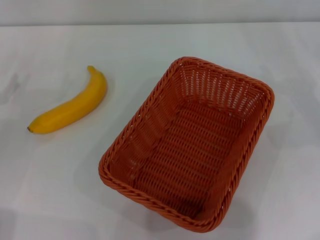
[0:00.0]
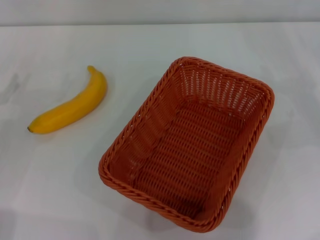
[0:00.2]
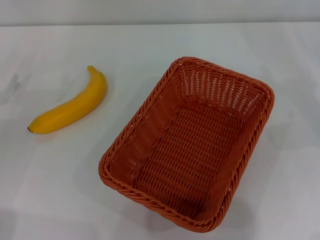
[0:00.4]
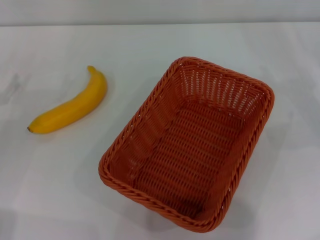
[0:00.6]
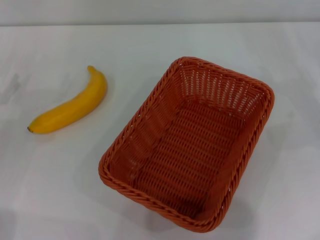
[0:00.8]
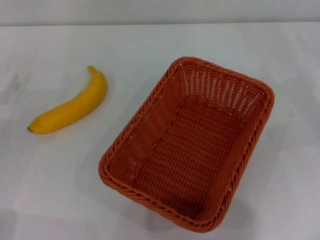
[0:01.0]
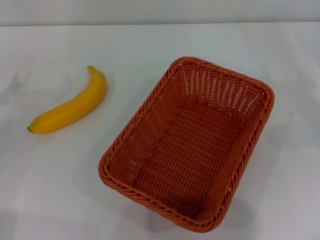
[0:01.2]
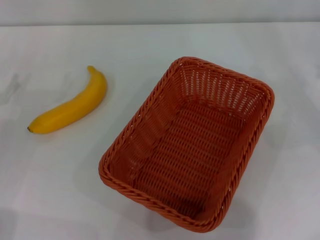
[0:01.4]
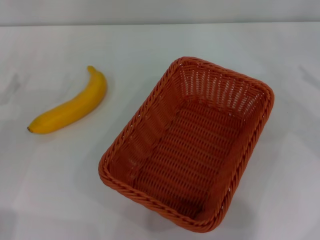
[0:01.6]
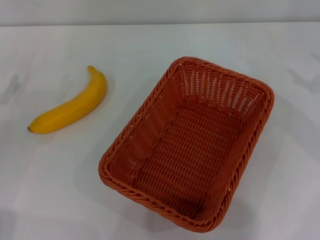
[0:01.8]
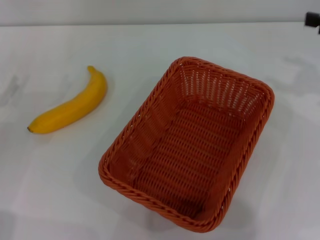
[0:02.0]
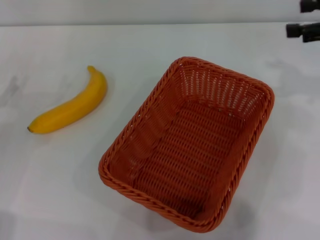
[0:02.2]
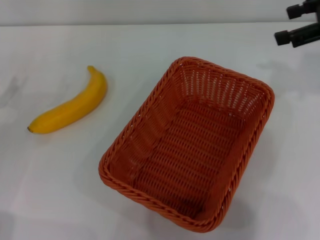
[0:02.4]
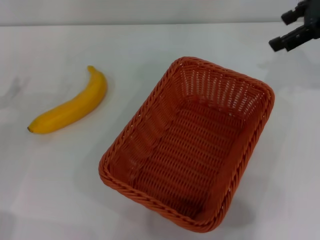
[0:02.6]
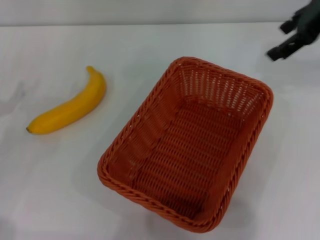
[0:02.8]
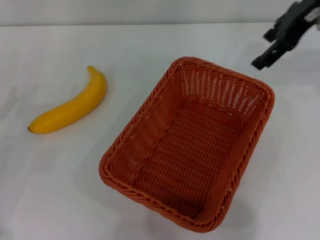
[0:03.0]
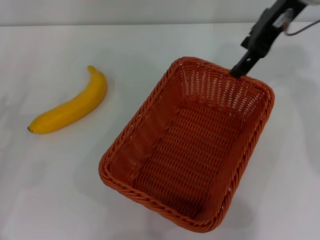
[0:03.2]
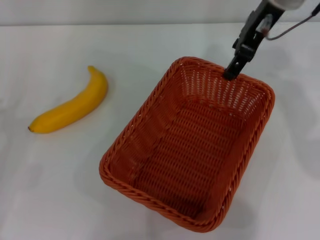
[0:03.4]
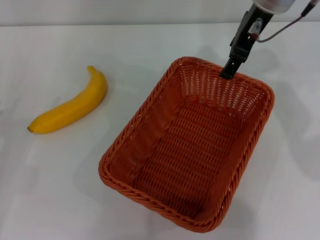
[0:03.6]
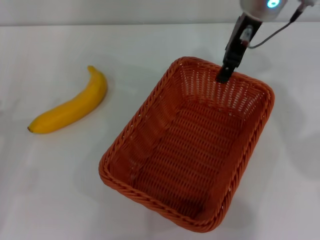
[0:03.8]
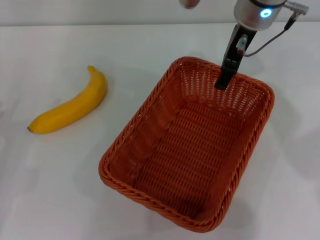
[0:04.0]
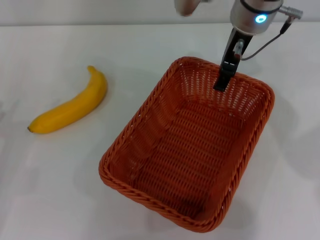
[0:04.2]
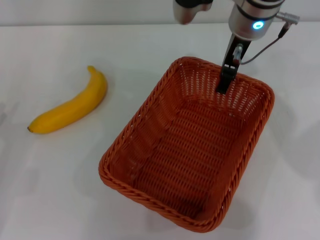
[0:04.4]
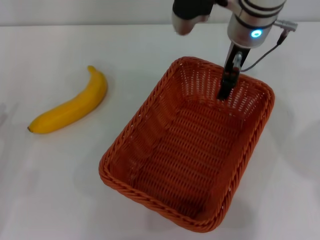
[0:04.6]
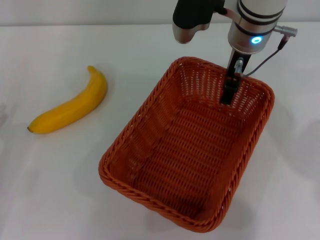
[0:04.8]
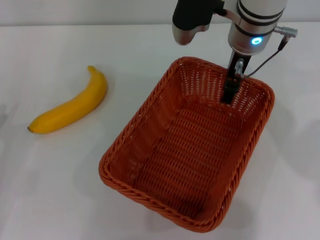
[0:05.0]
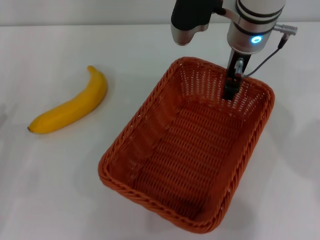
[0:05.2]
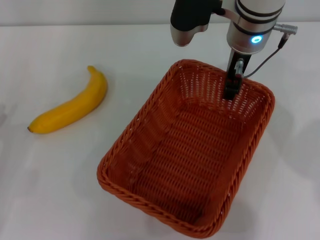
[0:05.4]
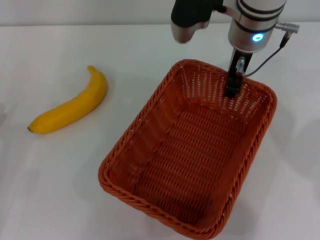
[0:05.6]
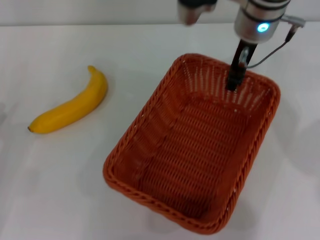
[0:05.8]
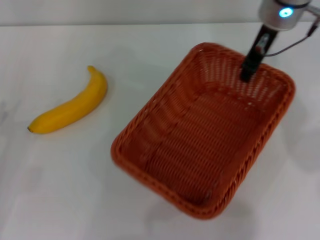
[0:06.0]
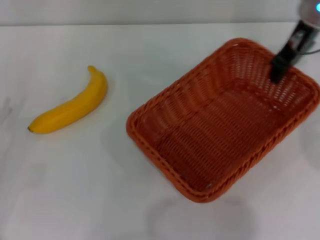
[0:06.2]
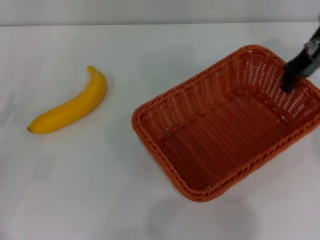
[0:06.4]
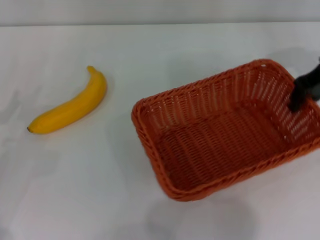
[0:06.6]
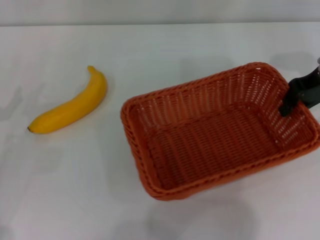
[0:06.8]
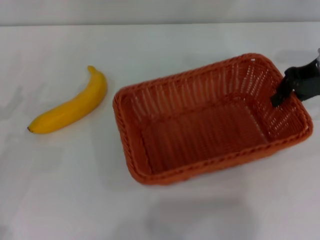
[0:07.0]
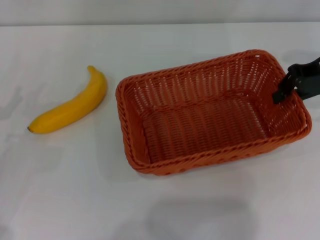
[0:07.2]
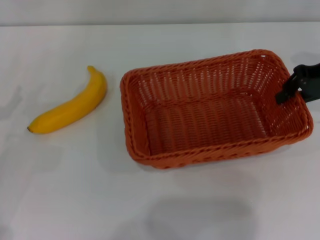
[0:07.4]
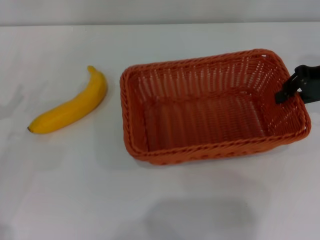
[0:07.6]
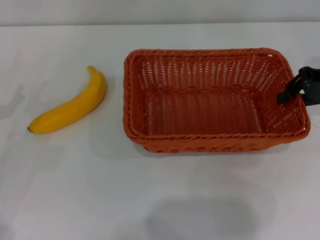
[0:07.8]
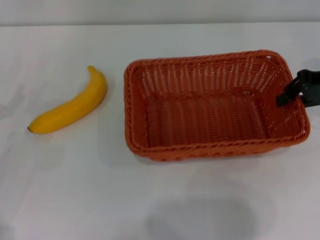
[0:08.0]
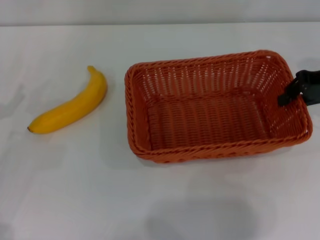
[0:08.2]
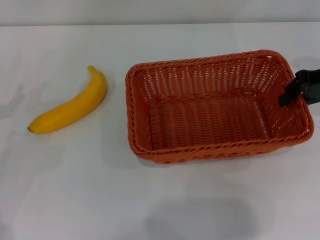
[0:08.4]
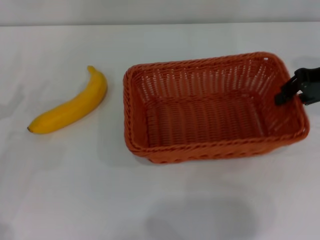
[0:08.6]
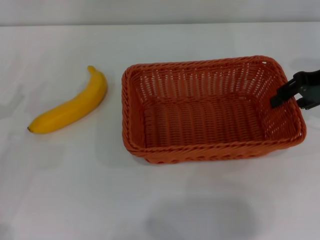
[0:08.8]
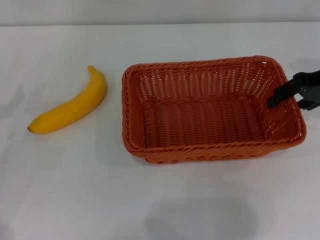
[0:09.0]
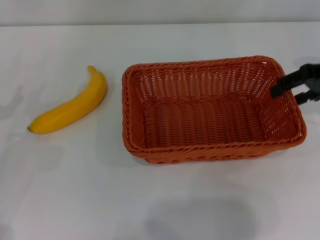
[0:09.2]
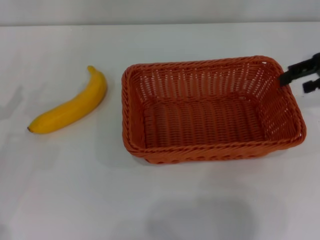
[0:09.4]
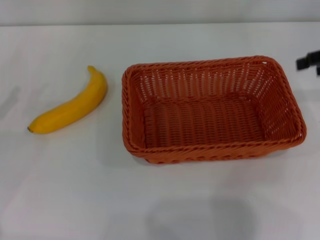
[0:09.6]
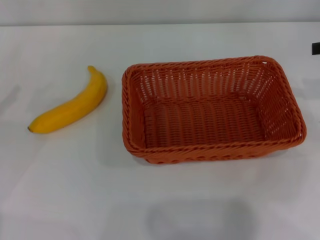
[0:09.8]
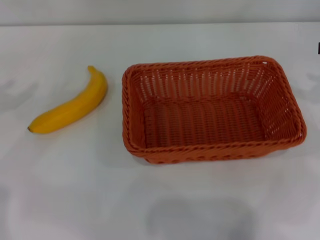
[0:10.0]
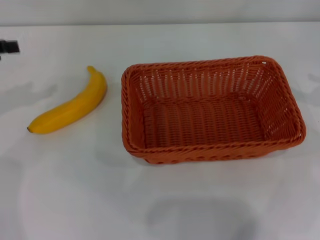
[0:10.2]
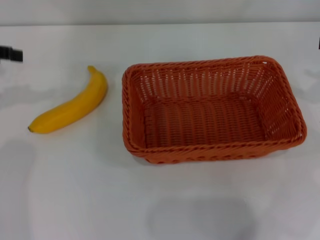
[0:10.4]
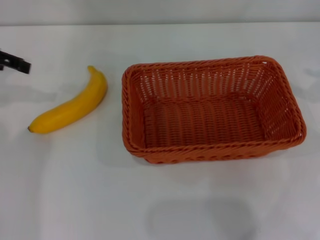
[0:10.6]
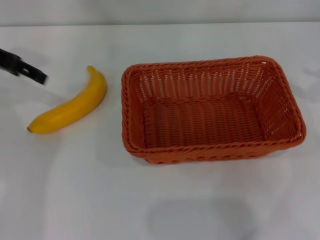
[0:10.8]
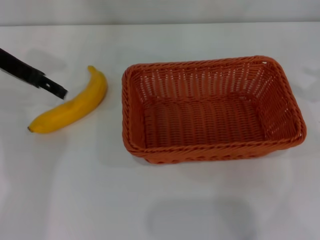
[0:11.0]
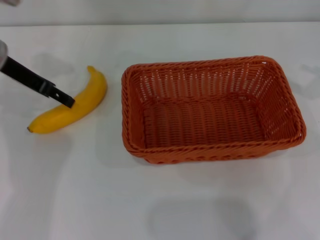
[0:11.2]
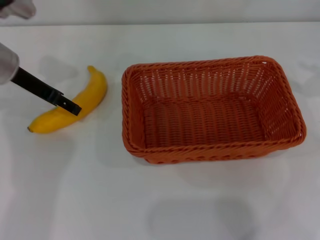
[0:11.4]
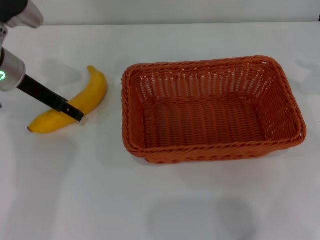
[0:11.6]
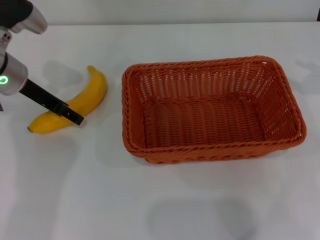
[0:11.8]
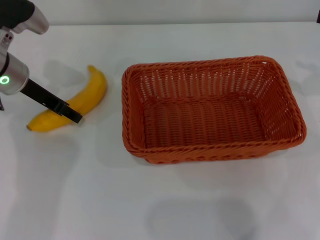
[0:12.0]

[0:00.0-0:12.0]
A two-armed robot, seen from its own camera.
Step, 0:00.0 to 0:06.0: Pick up the light basket with the right gripper.
Step, 0:06.2 to 0:09.4: Place the light basket in the center of view with the right gripper.
0:01.6 to 0:03.0: The right gripper is displaced to the left, upward and forward by some 25 cm.
0:03.0 to 0:04.4: The right gripper shifts approximately 15 cm to the left and downward.
0:04.4 to 0:06.0: The right gripper changes place by roughly 5 cm, and closes.
0:06.0 to 0:07.6: The right gripper heads to the right, covering some 15 cm.
0:07.6 to 0:09.0: The right gripper opens its fingers.
0:09.0 to 0:10.4: The right gripper goes roughly 10 cm to the right and backward, and opens its fingers.
0:10.4 to 0:12.0: The left gripper shifts about 15 cm to the right and downward.

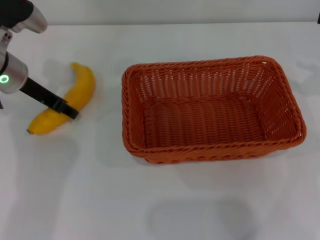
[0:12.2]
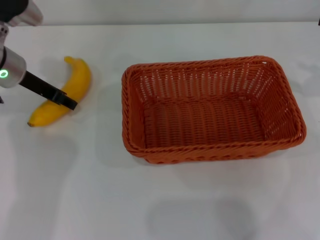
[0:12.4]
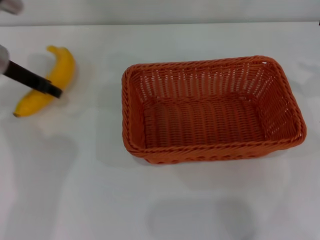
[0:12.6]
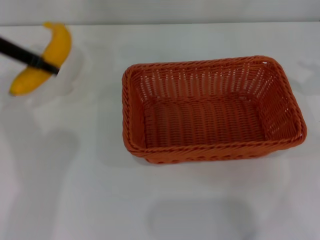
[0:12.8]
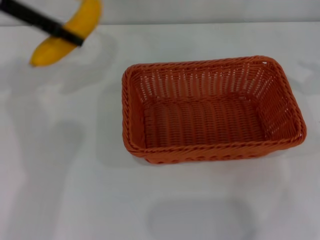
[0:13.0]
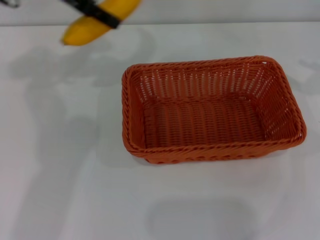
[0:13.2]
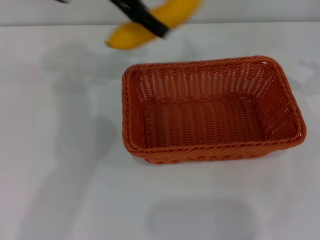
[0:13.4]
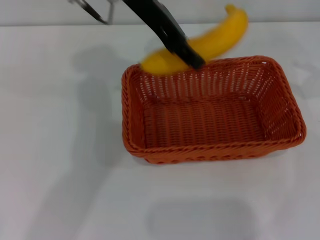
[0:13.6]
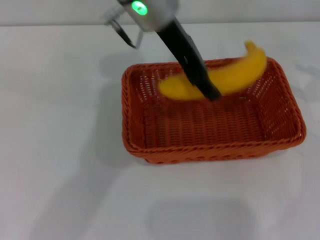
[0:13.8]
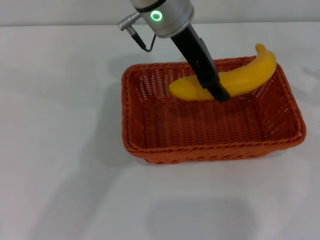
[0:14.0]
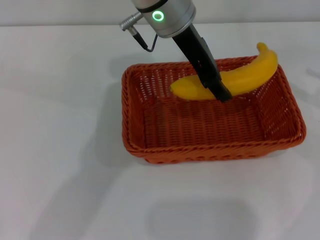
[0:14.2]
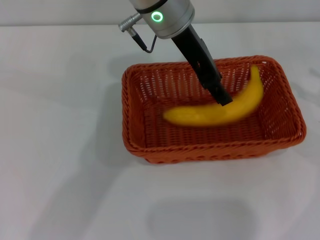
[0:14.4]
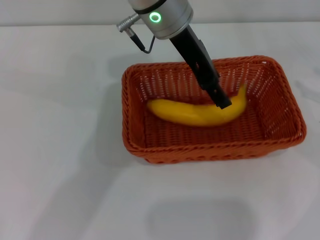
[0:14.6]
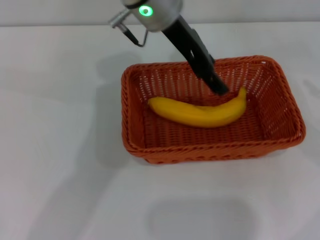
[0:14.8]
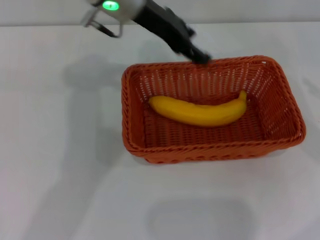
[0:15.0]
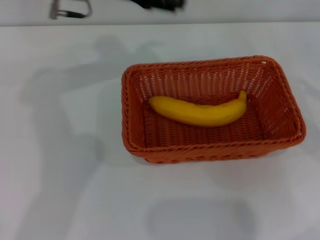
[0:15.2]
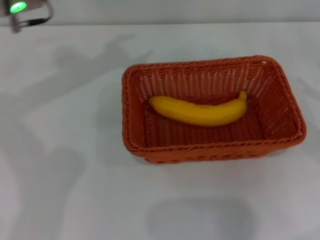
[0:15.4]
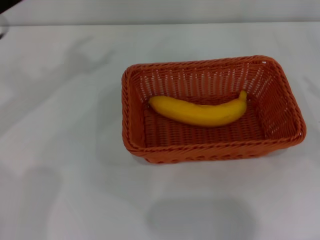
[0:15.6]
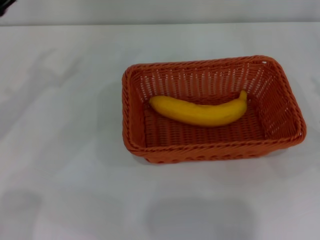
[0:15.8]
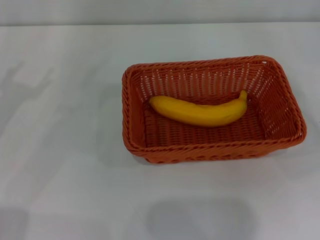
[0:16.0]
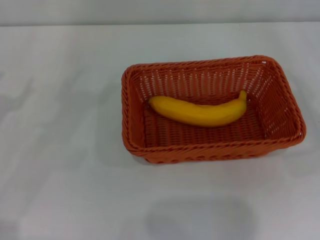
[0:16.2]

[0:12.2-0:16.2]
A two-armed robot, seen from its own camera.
Step, 0:13.0 to 0:14.8: Place the banana into the light basket with the left gripper.
0:12.2 to 0:13.6: The left gripper moves to the right and upward, about 20 cm.
0:13.6 to 0:14.8: The left gripper opens up; the right gripper ends up some 5 cm from where it was.
0:14.8 to 0:16.2: The right gripper heads downward, covering some 10 cm. Meanwhile the left gripper heads to the left, backward and downward, covering about 40 cm.

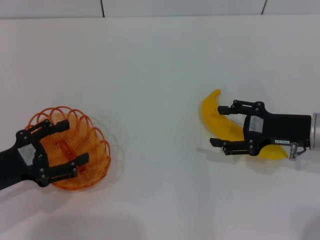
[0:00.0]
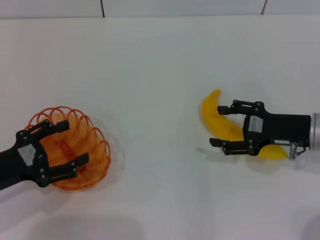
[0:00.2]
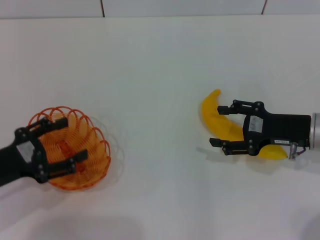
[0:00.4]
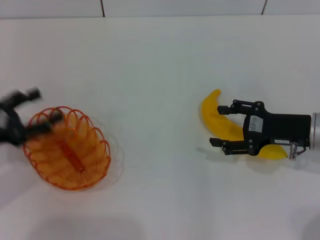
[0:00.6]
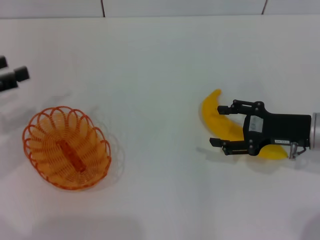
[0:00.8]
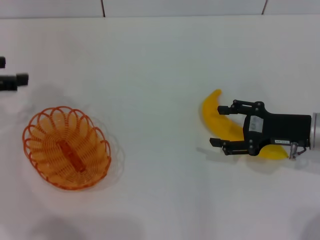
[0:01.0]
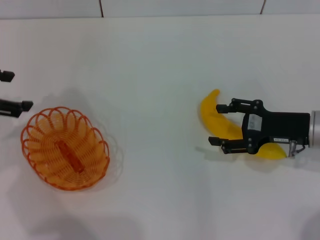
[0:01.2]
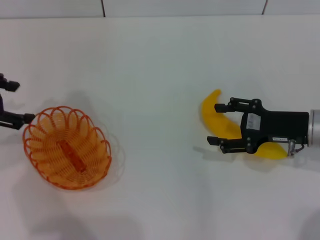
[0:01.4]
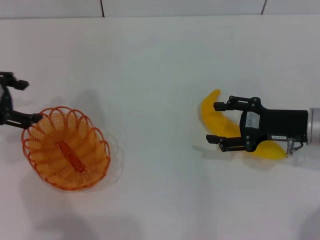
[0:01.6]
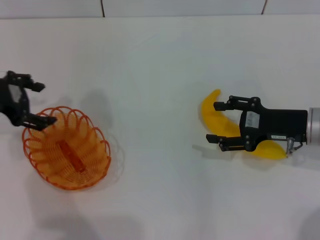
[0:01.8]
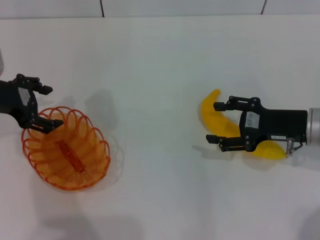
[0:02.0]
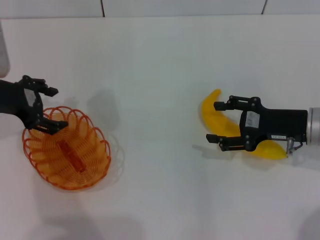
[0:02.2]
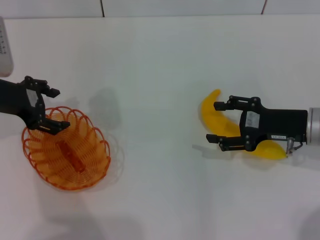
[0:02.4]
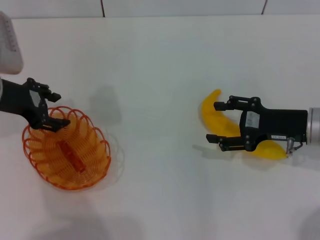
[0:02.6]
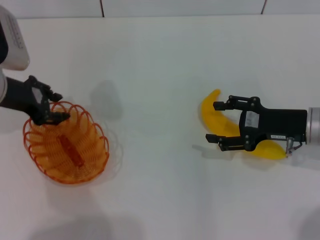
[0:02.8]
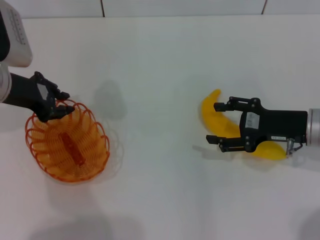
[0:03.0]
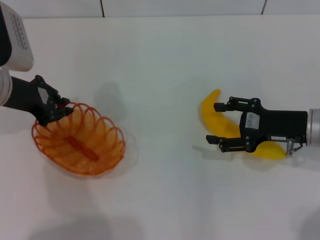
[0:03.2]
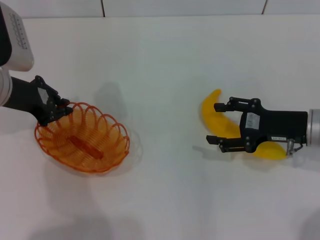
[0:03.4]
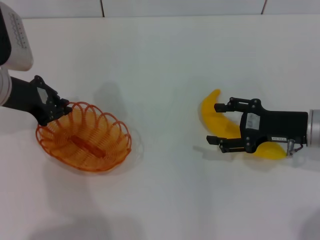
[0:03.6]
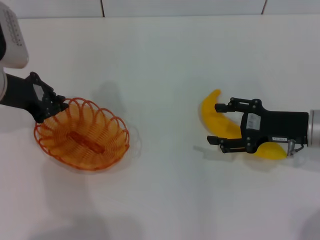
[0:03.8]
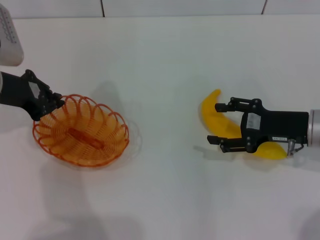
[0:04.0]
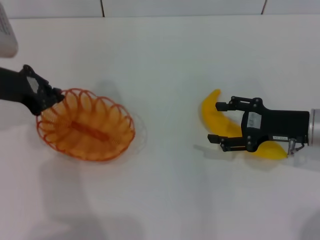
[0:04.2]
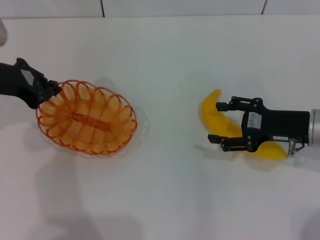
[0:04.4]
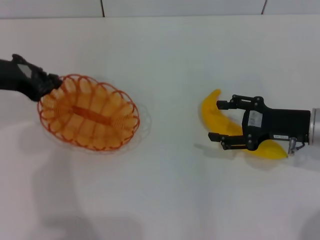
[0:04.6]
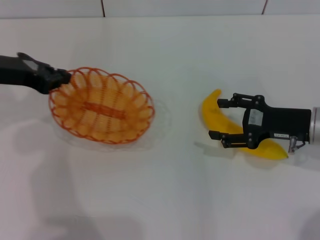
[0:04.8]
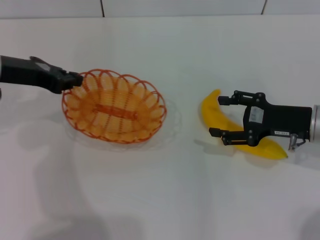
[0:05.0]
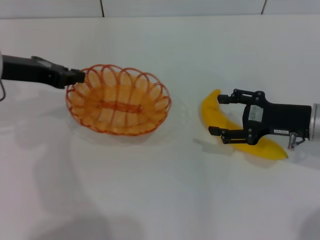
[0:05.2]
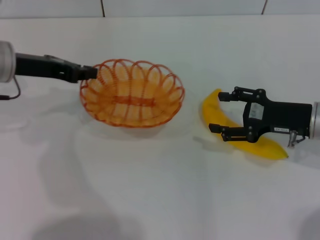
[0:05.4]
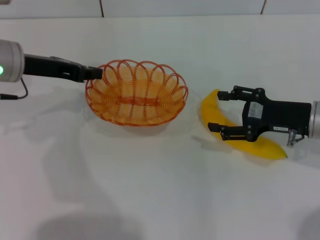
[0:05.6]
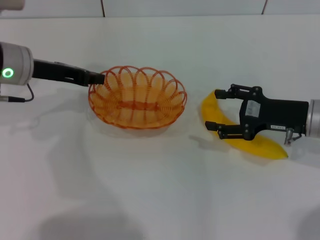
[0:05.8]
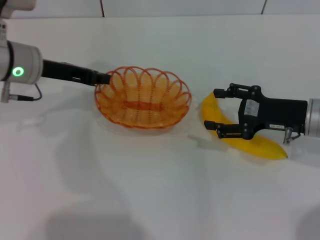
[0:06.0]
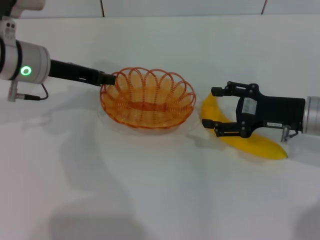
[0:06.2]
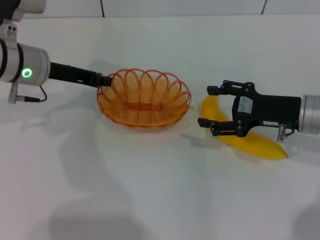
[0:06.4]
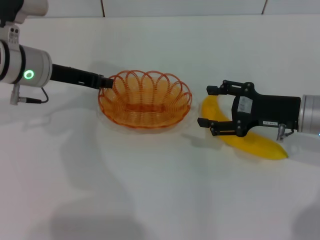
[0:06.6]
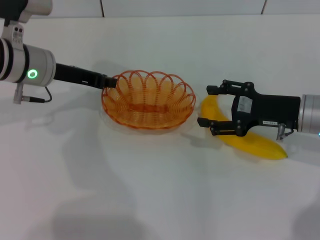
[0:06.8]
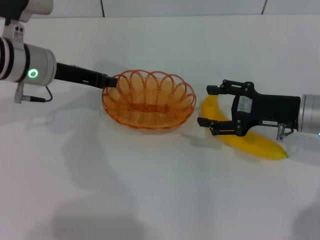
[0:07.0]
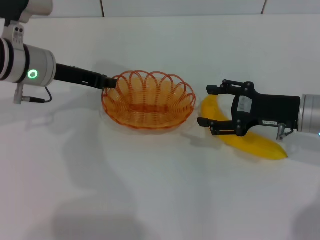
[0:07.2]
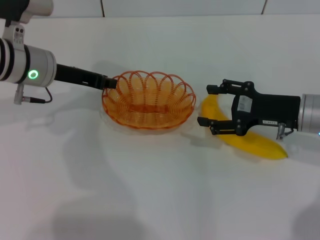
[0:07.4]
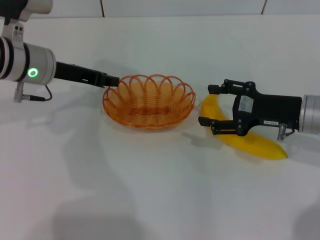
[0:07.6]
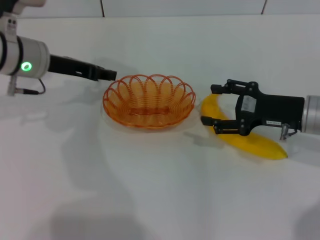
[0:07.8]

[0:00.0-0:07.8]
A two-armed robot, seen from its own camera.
Step, 0:00.0 to 0:04.2: Pick up the basket with the left gripper.
0:00.0 to 0:01.6: The left gripper moves upward and forward, approximately 15 cm.
0:01.6 to 0:03.2: The left gripper goes about 5 cm to the right, and closes.
0:03.2 to 0:04.6: The grippers make only small movements.
0:04.6 to 0:06.2: The left gripper moves to the right, roughly 5 cm.
0:06.2 to 0:07.8: The grippers stay close to where they were, moving slightly.
